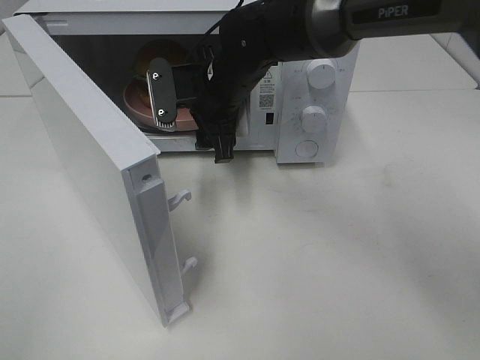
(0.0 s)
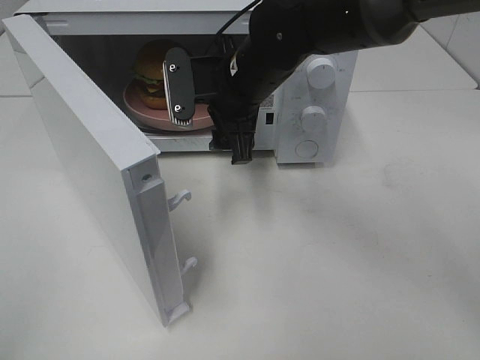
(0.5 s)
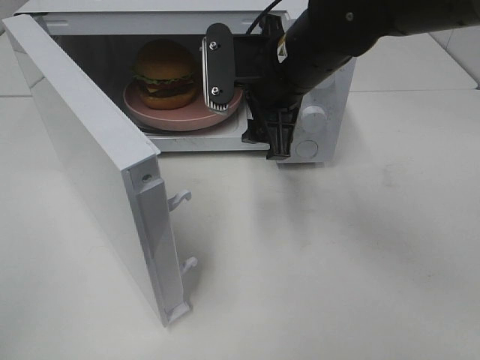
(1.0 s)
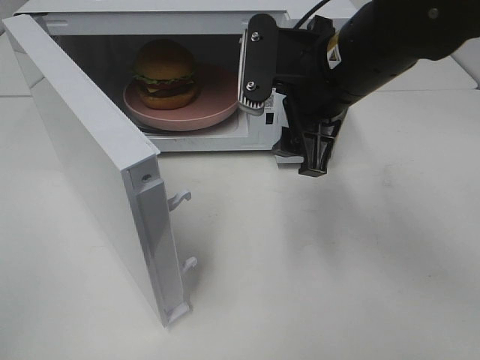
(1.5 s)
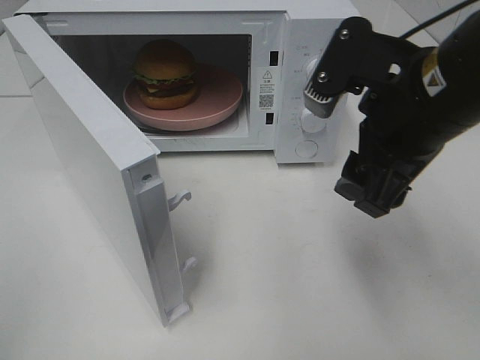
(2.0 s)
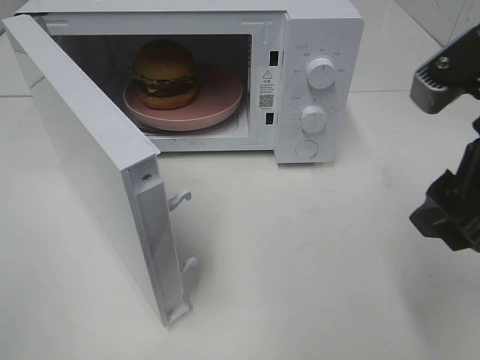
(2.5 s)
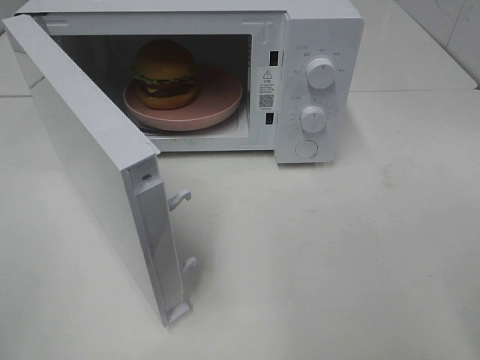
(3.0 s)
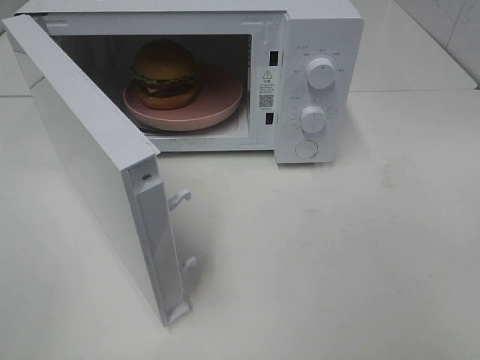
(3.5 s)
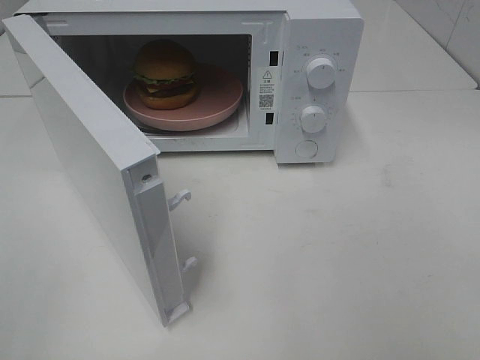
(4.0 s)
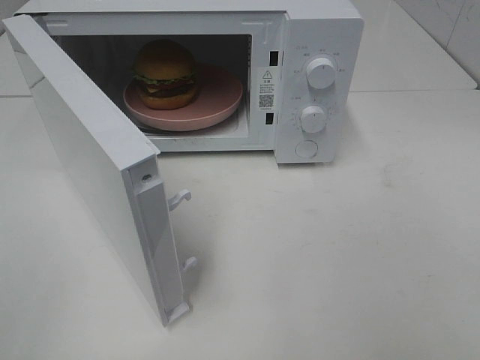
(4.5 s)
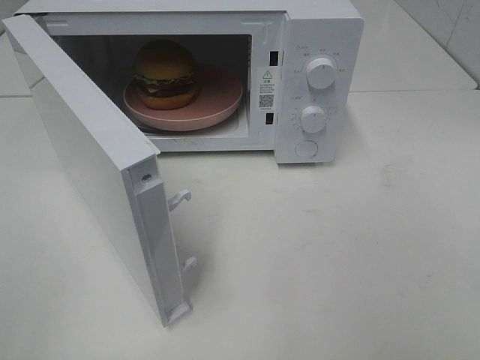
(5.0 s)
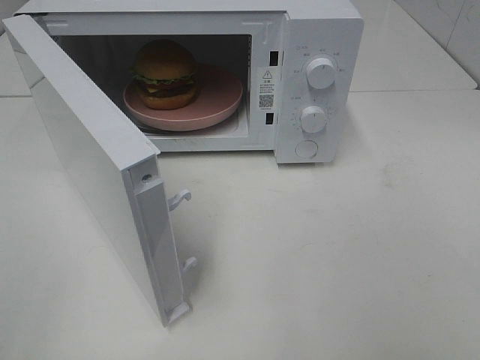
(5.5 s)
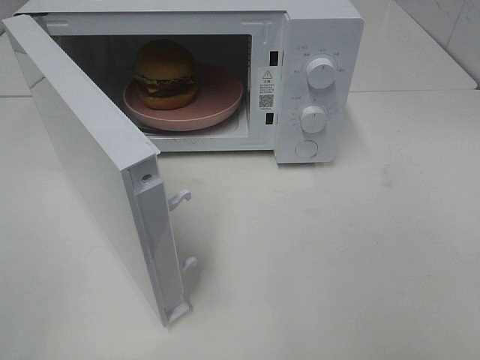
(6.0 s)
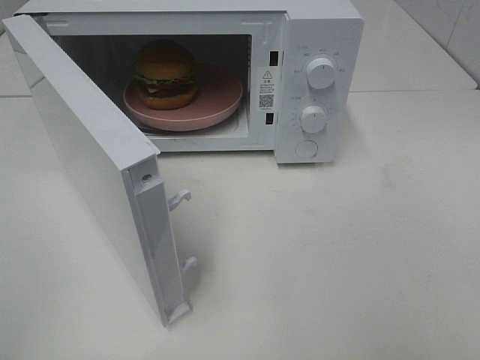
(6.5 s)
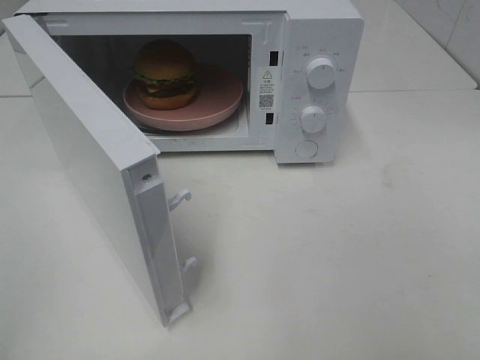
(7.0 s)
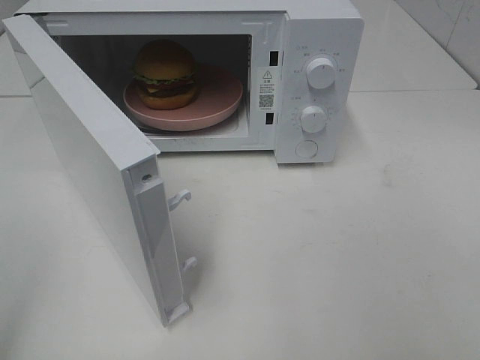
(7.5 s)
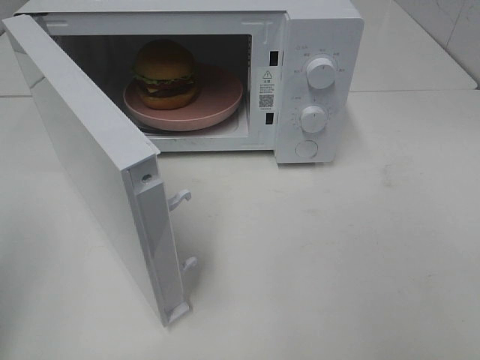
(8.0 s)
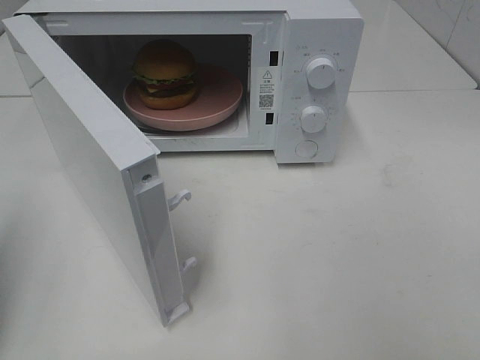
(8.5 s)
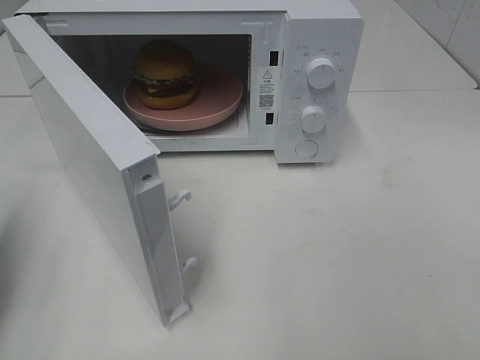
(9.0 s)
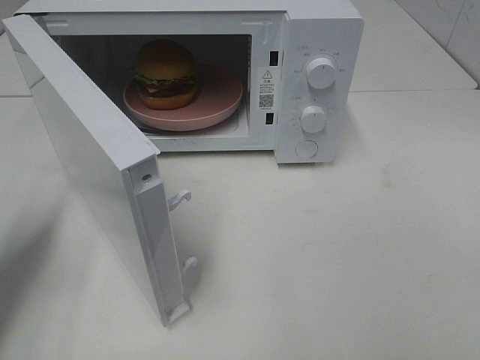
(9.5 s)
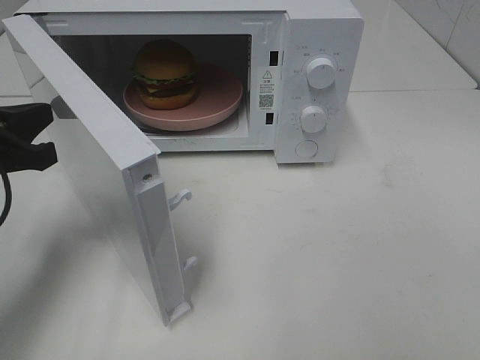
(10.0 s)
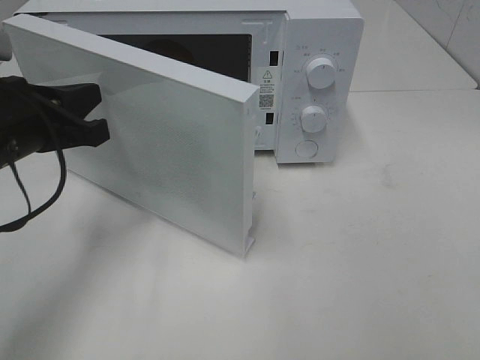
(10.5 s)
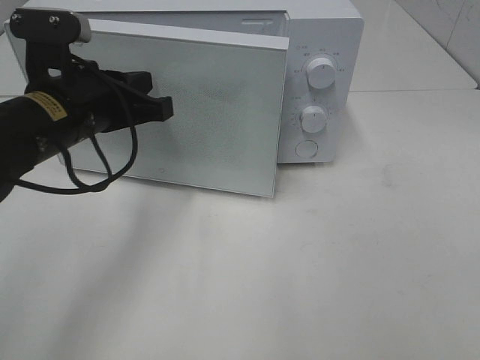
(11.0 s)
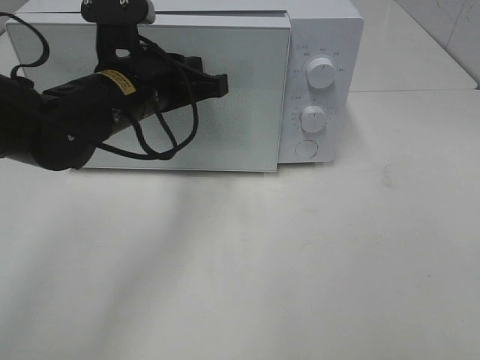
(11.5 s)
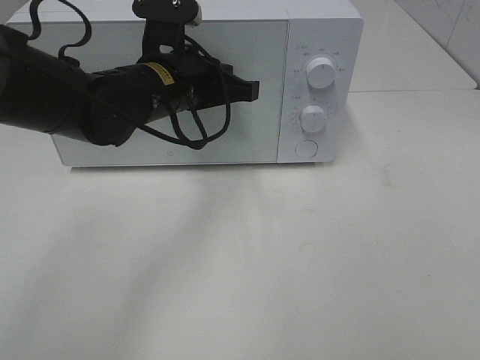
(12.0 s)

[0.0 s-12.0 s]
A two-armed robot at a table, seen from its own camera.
Task of the whole recording: Heat the burger.
0.0 to 2.0 s: The left gripper closes, while the right gripper is displaced backward, to the right and upward by roughly 25 cm.
2.0 to 4.0 s: The right gripper goes roughly 25 cm backward and to the right.
8.0 to 10.0 s: The left gripper goes approximately 20 cm forward, downward and to the right.
10.0 to 12.0 s: The left gripper heads to the right and forward, covering some 20 cm.

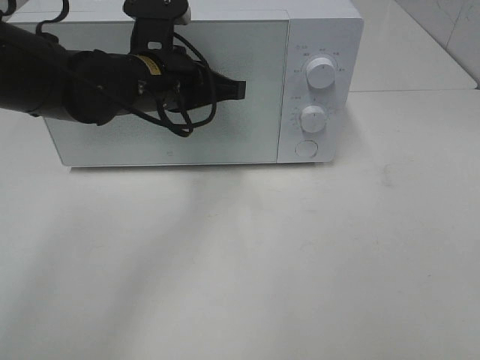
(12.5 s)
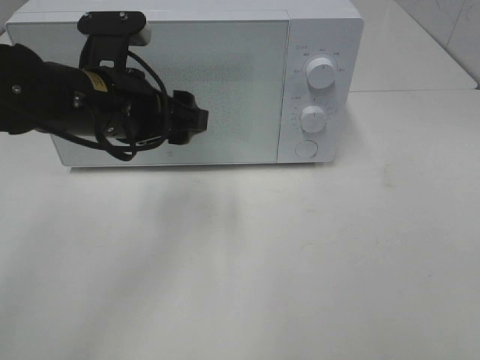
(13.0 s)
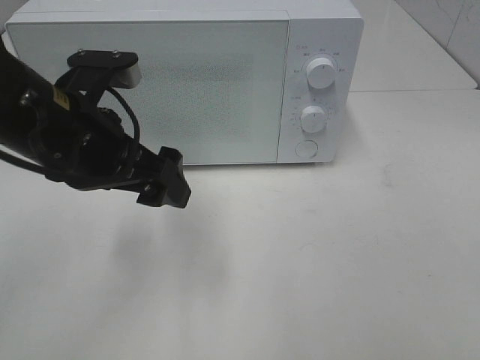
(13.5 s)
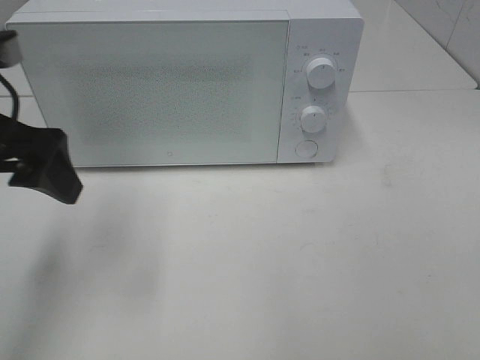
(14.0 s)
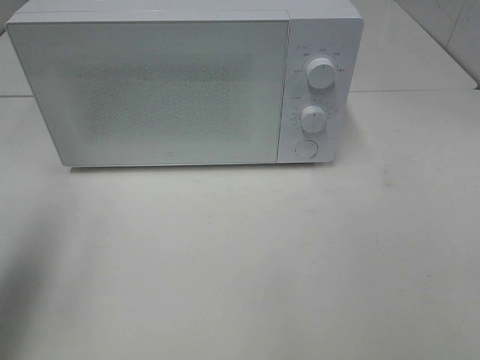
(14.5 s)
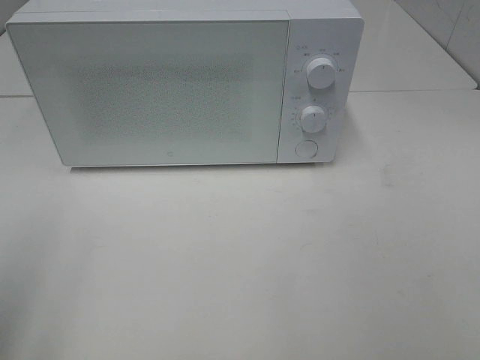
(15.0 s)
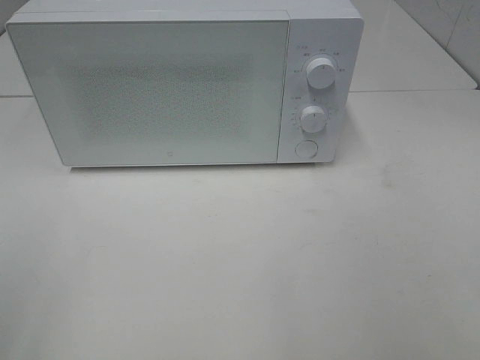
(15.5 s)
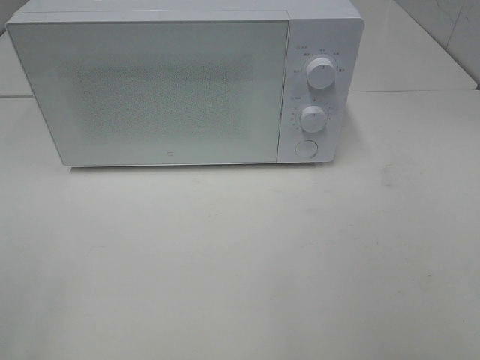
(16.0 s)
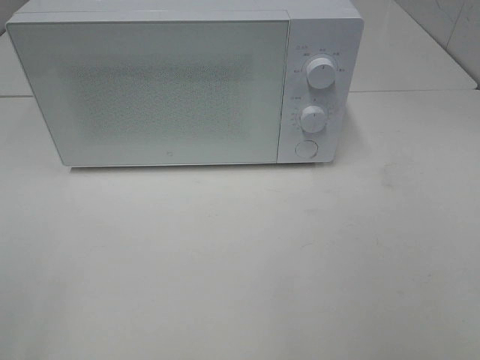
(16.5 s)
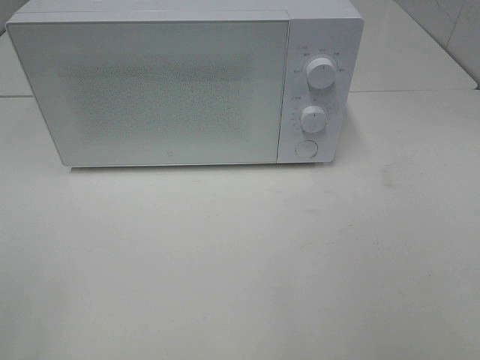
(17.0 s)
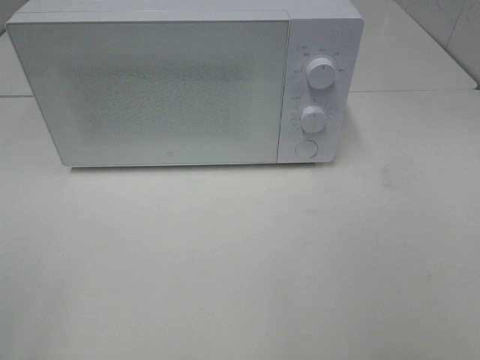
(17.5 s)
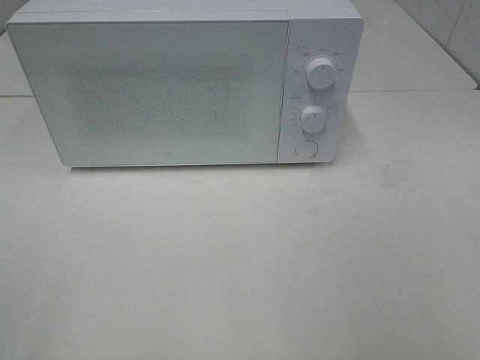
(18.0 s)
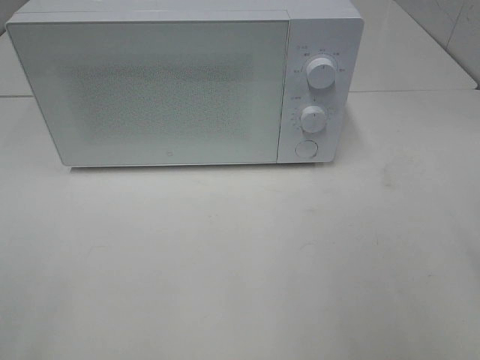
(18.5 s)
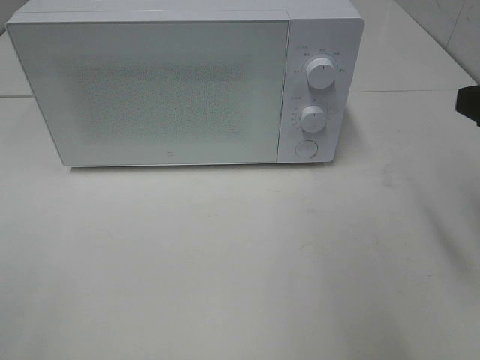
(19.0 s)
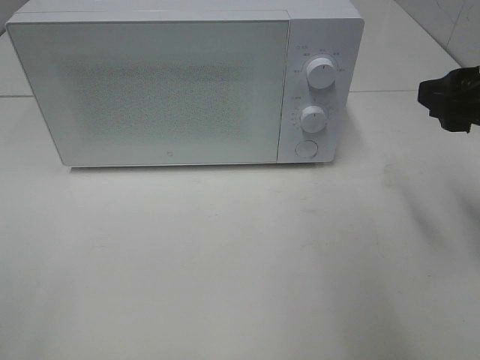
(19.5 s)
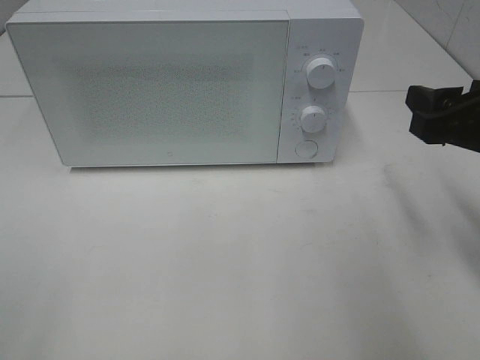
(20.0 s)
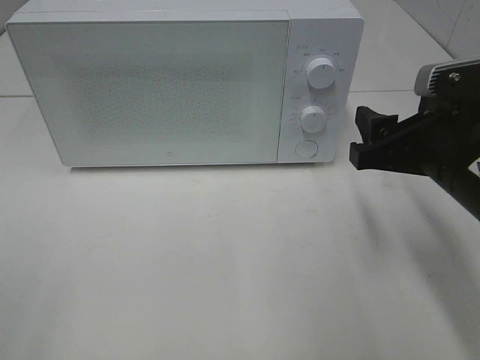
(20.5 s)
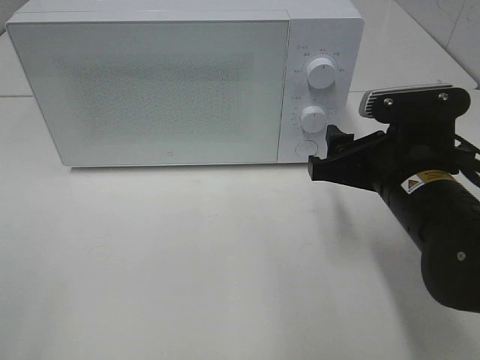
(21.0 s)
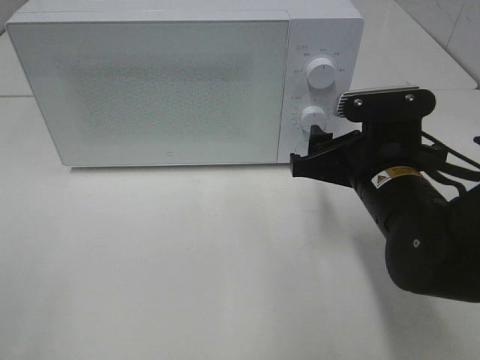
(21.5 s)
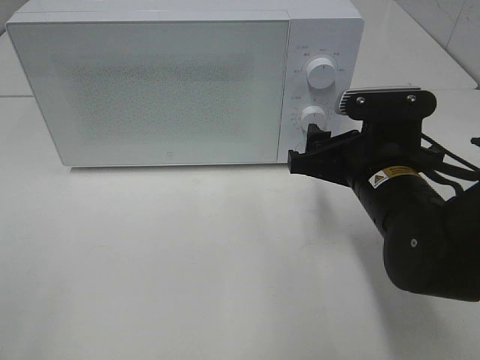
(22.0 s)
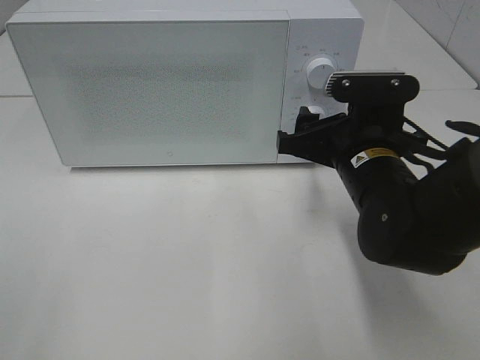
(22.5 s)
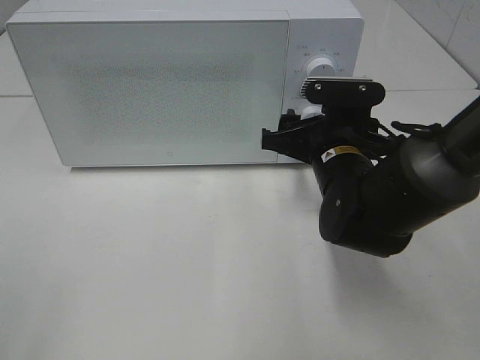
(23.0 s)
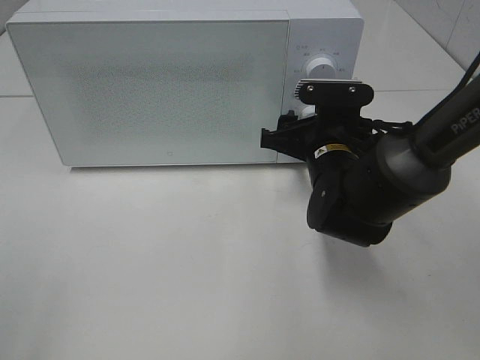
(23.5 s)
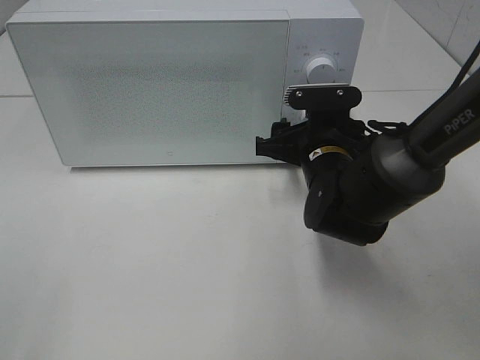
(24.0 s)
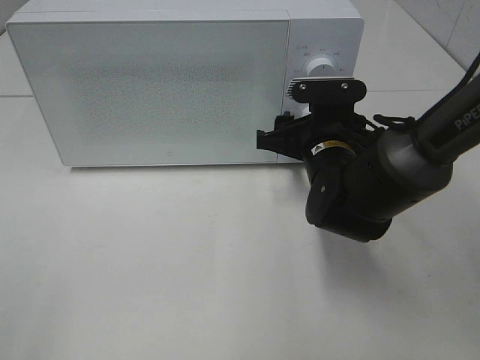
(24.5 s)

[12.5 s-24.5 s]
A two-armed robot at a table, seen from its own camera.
Task of the whole recording: Heat the burger.
12.5 to 14.5 s: The left gripper travels to the left, backward and upward by roughly 30 cm, and opens.
14.5 to 16.5 s: The left gripper goes approximately 20 cm backward.
18.5 to 20.5 s: The right gripper travels downward, forward and to the left by approximately 15 cm.
20.5 to 22.5 s: The right gripper shifts approximately 10 cm to the left and forward.
22.5 to 24.5 s: The right gripper goes some 5 cm forward.

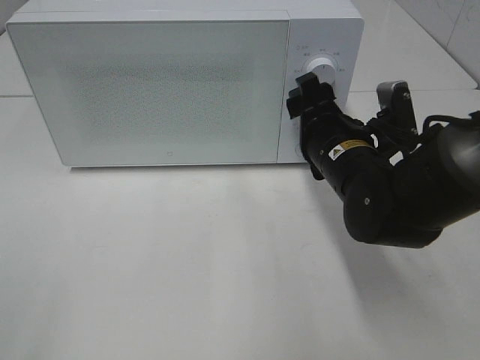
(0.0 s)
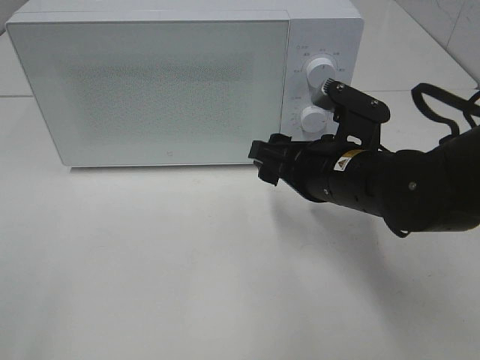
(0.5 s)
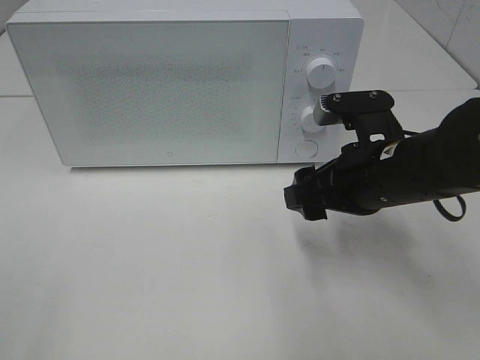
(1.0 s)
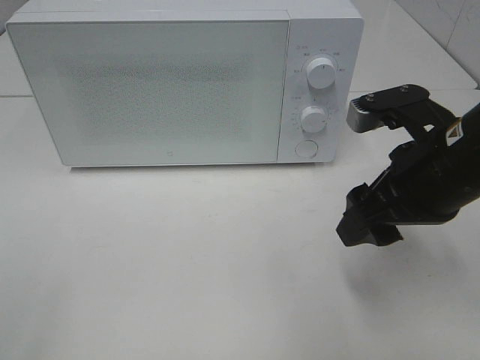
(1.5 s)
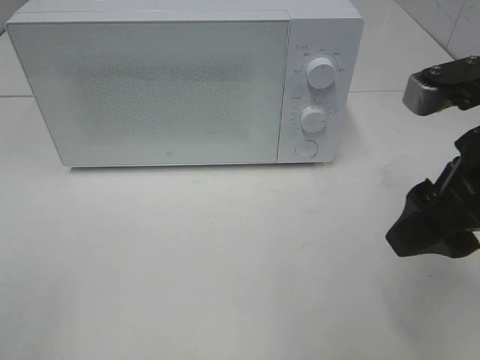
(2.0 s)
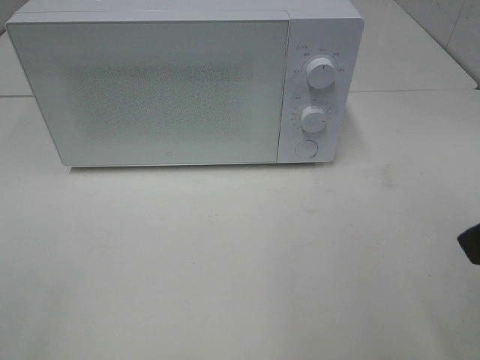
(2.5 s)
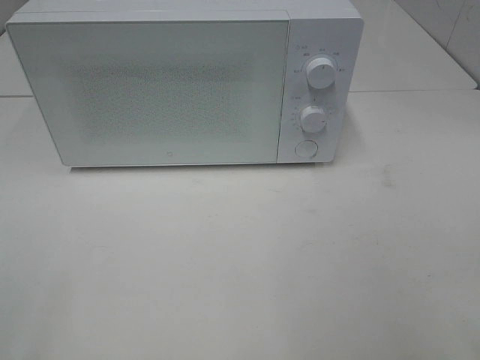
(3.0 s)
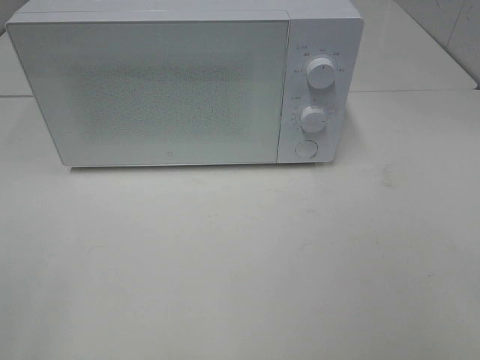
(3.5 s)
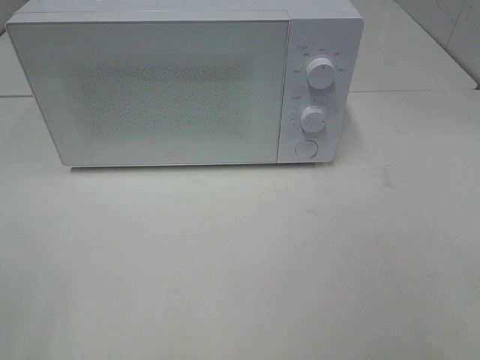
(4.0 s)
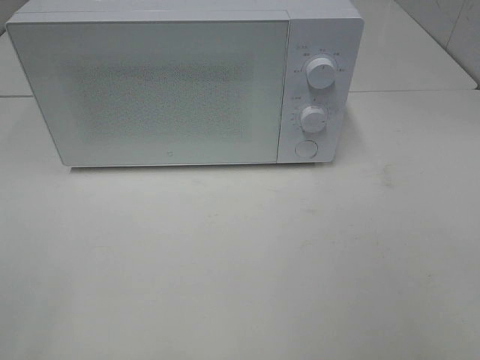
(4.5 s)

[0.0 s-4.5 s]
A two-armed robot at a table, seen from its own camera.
Task of the whole recording: Heat the burger.
0.0 to 2.0 s: The right gripper moves upward, backward and to the right, about 20 cm.
2.0 to 4.5 s: The right gripper heads backward and to the right, covering roughly 15 cm.
